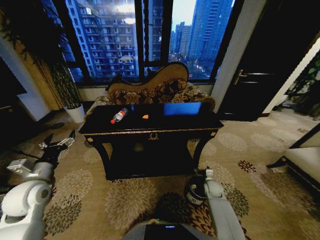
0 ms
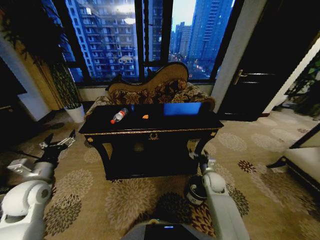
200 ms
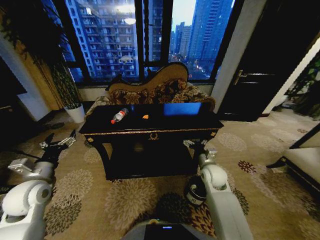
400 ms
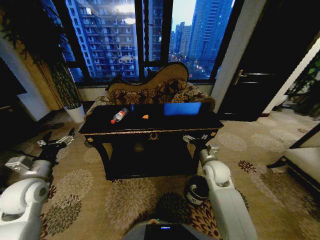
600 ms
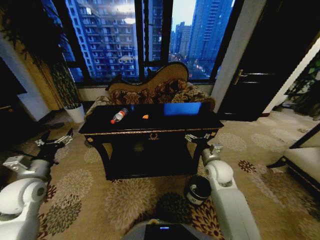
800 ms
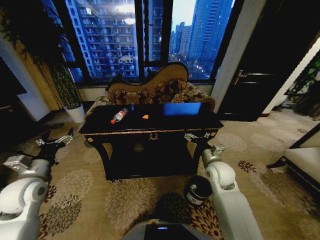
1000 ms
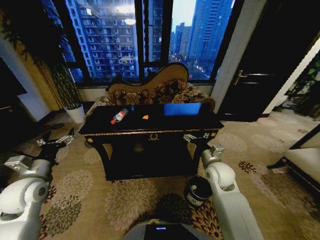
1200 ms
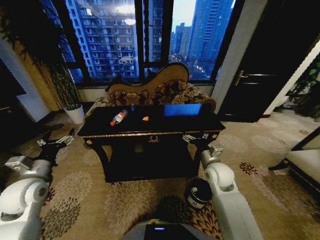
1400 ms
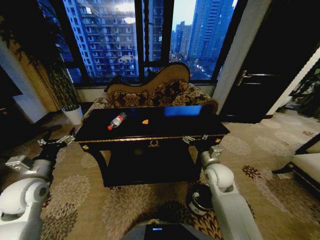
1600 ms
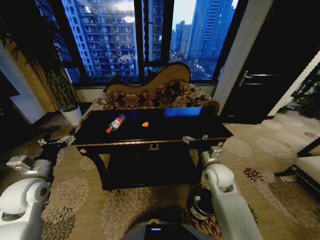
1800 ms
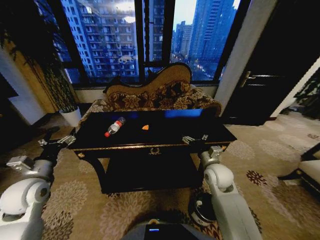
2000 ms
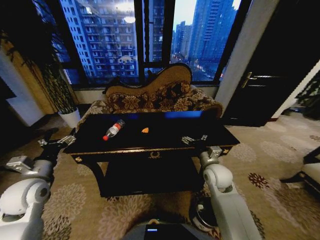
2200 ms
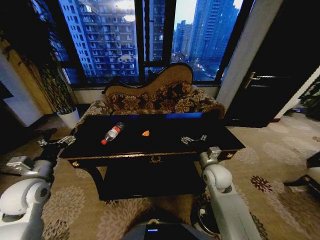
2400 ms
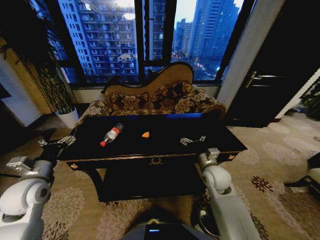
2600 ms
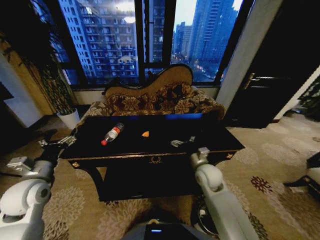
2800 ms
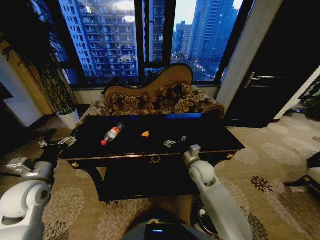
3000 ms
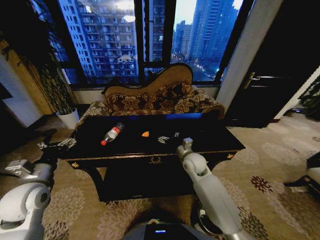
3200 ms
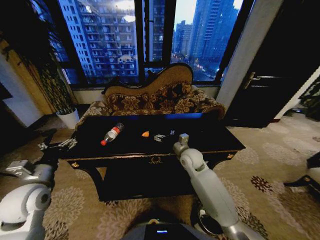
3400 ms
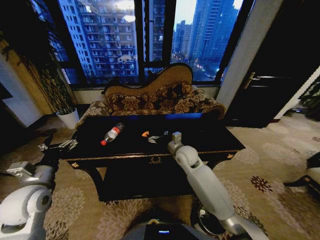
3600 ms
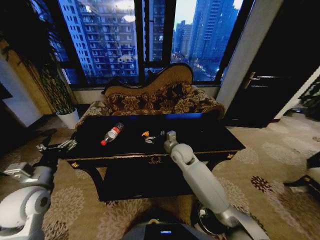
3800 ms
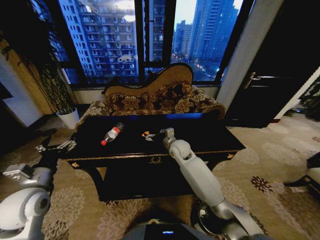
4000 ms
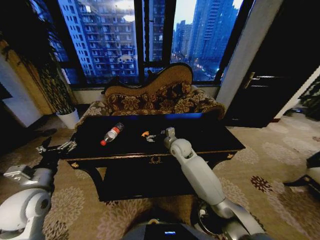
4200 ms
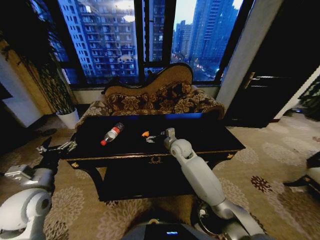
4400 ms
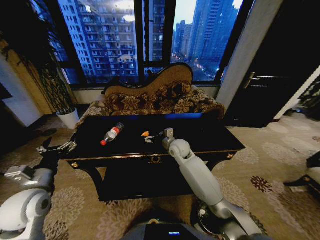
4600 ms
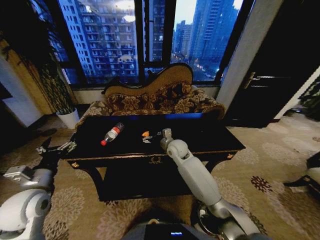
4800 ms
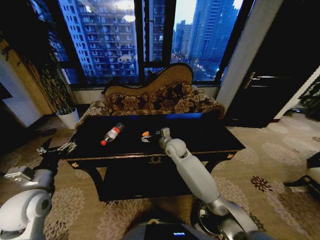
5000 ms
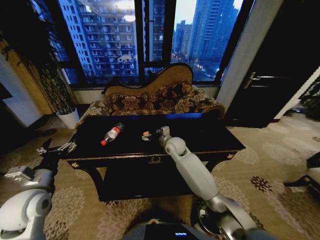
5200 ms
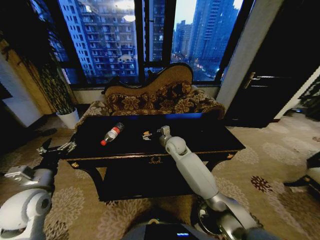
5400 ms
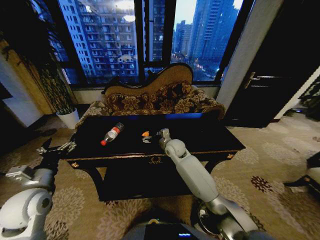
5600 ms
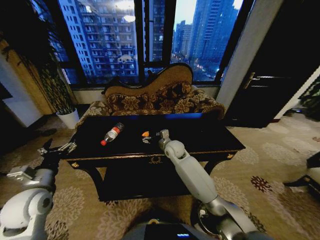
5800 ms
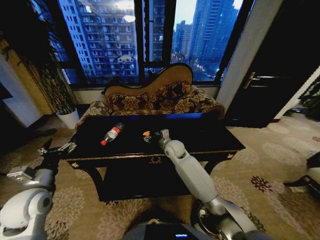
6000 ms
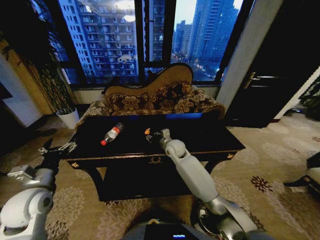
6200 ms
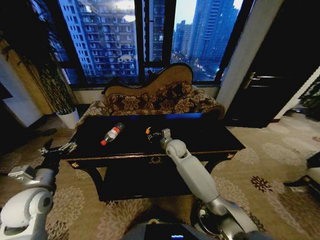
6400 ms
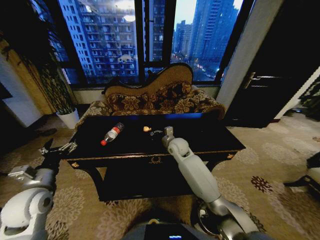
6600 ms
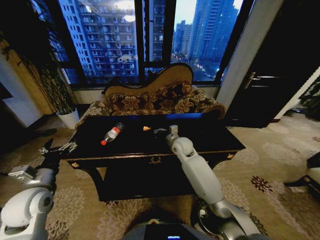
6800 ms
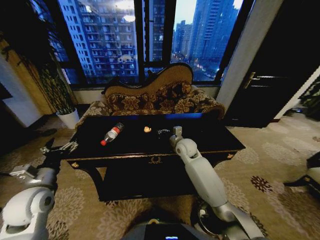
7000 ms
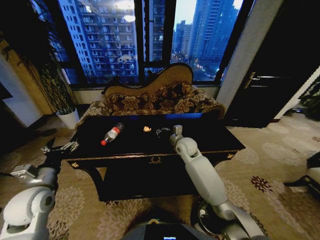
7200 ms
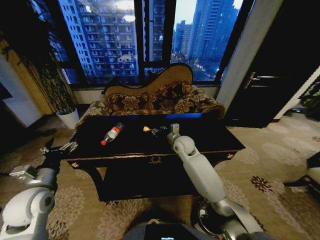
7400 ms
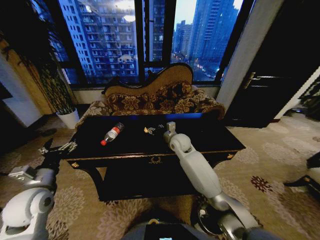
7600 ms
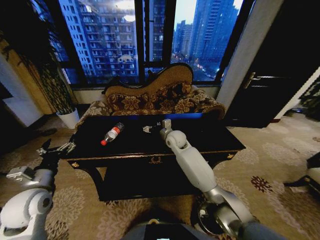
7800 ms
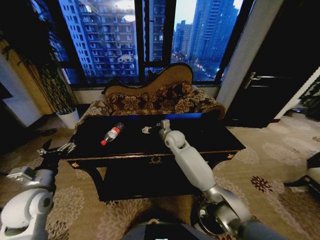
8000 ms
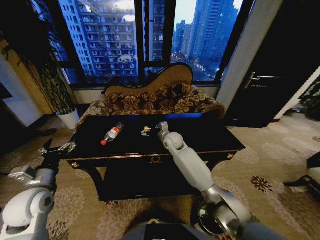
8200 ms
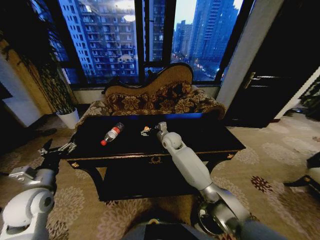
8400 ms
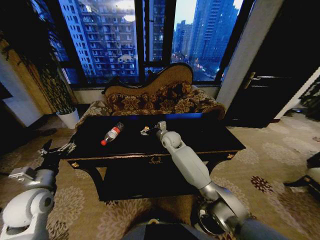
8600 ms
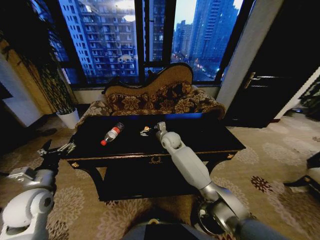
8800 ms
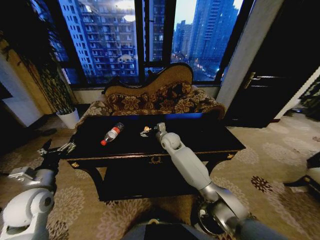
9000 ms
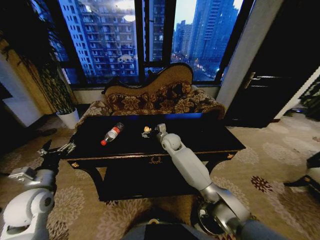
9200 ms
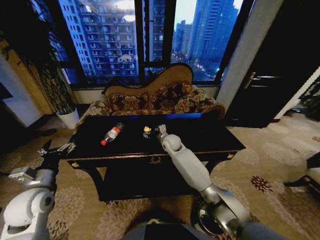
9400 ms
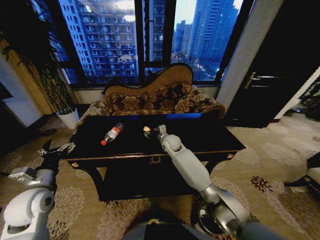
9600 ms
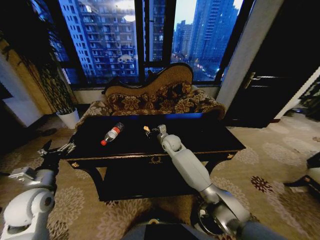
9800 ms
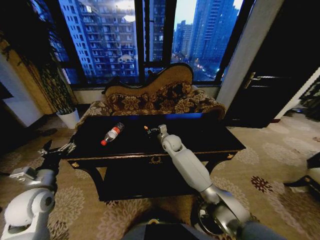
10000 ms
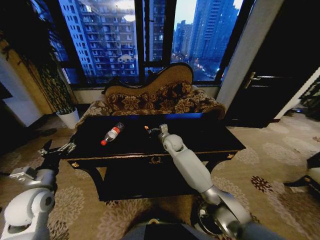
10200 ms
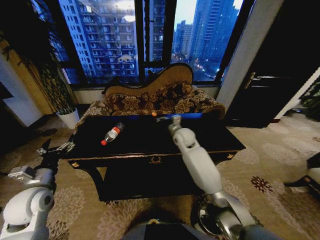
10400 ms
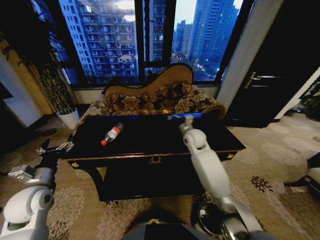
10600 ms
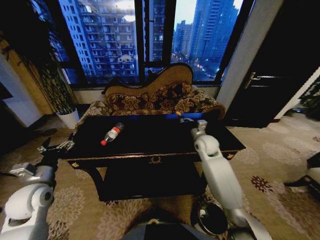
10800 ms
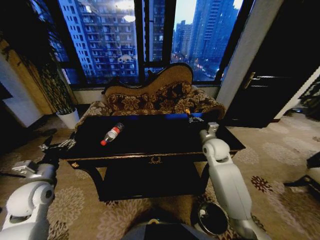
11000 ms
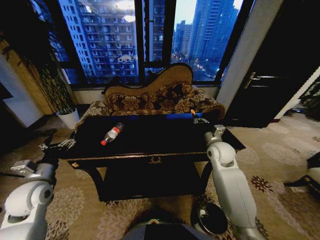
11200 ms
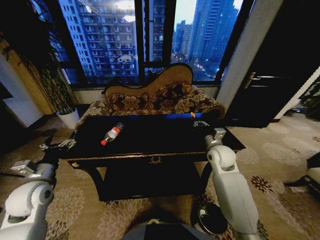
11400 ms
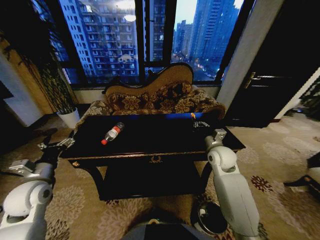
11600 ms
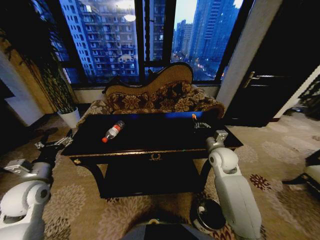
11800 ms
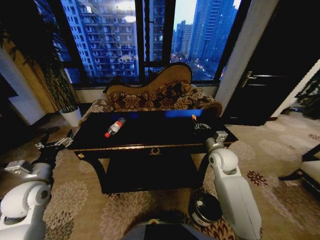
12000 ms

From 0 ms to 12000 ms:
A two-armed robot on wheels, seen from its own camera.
Task of the whole recording: Move to the front of the table and place the trash on the table into the trash bin.
From 0 ms to 1600 ms: The right gripper is displaced upward by roughly 25 cm.
From 1600 ms to 3000 ms: The right gripper is displaced to the left by about 5 cm.
From 3000 ms to 4400 ms: The right gripper is displaced forward and to the left by roughly 10 cm.
From 4400 ms to 6000 ms: The grippers stay close to where they were, moving slightly.
From 6000 ms to 7600 ms: The right gripper closes, then opens again.
From 7600 ms to 9000 ms: The right gripper moves approximately 5 cm, and opens its fingers.
From 9000 ms to 10400 ms: The right gripper moves about 5 cm, and closes up.
From 10400 ms to 12000 ms: The right gripper moves to the right and backward, some 20 cm.

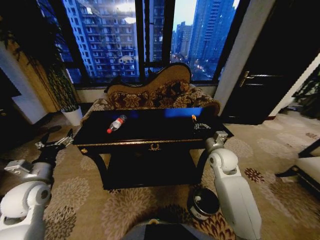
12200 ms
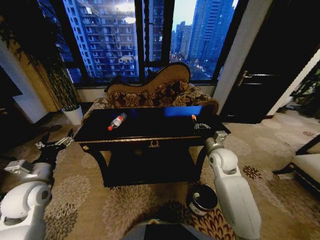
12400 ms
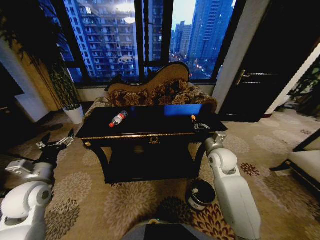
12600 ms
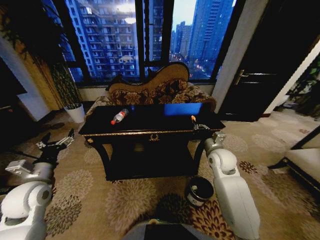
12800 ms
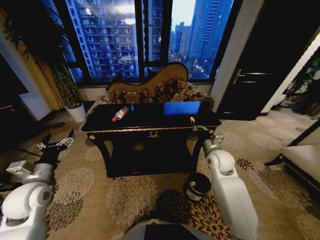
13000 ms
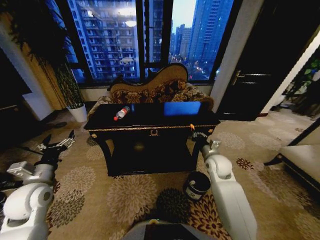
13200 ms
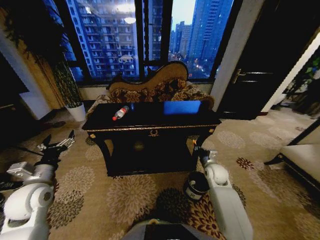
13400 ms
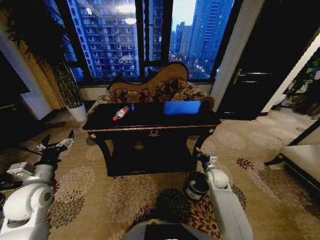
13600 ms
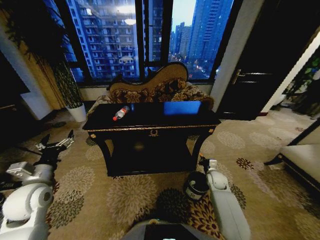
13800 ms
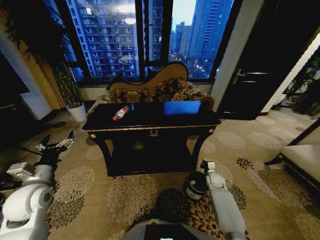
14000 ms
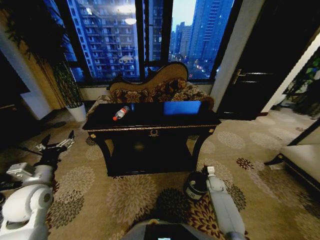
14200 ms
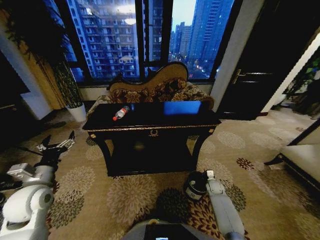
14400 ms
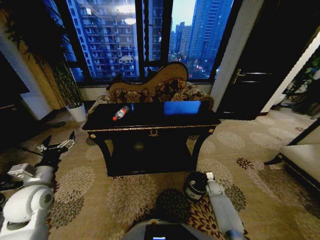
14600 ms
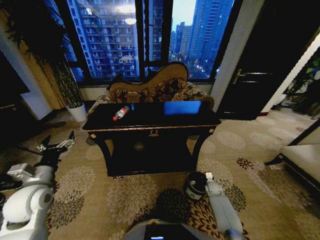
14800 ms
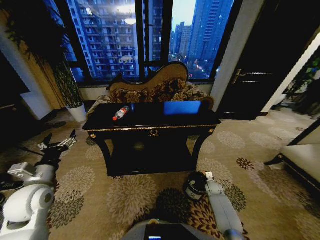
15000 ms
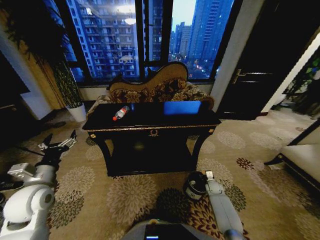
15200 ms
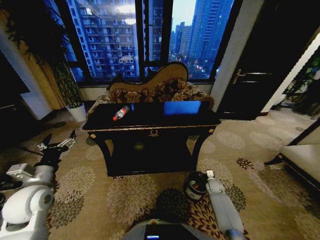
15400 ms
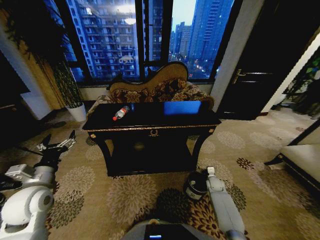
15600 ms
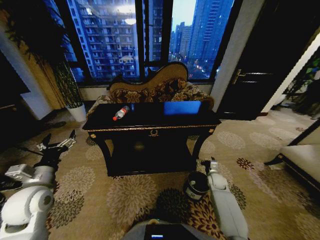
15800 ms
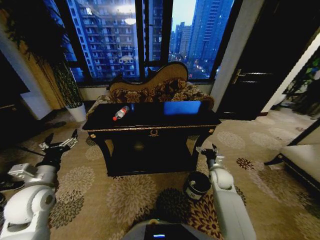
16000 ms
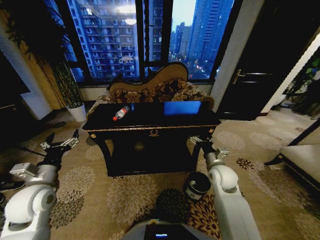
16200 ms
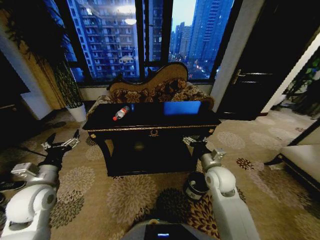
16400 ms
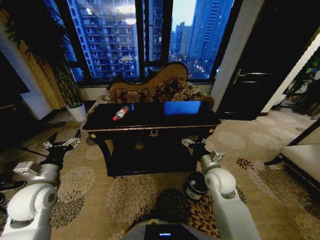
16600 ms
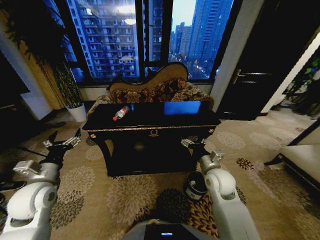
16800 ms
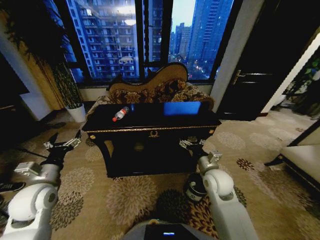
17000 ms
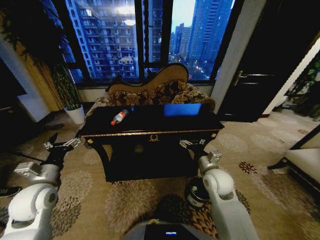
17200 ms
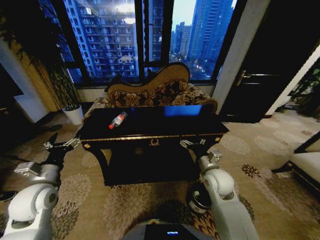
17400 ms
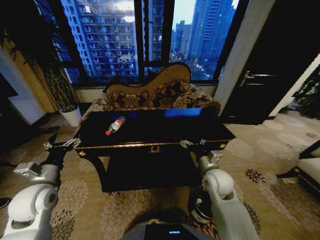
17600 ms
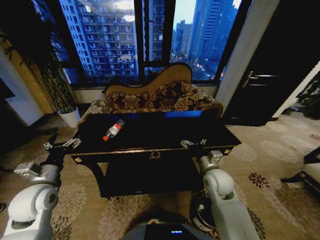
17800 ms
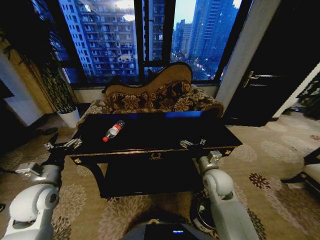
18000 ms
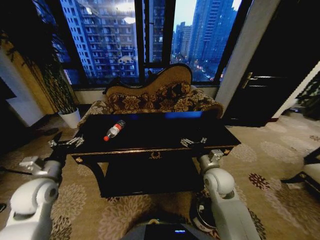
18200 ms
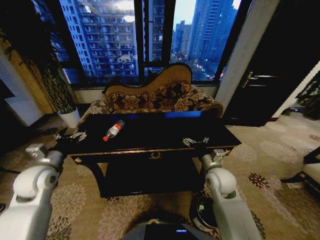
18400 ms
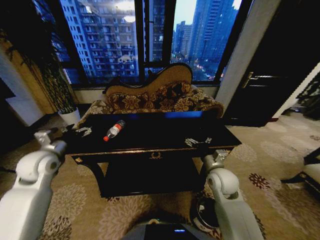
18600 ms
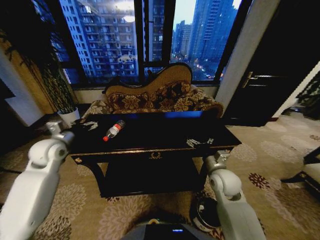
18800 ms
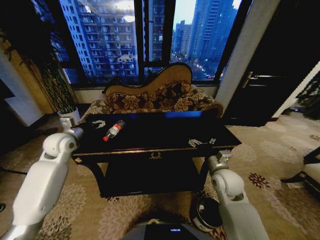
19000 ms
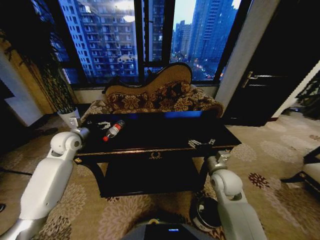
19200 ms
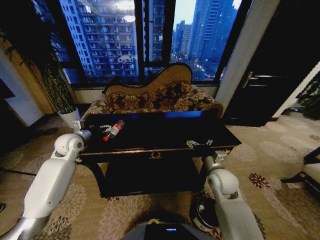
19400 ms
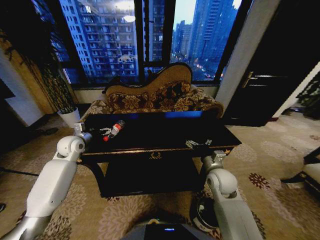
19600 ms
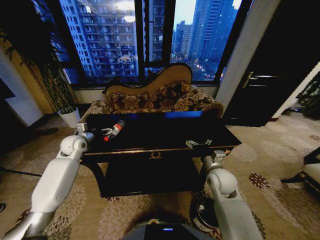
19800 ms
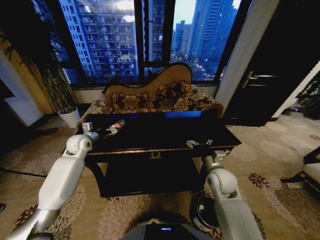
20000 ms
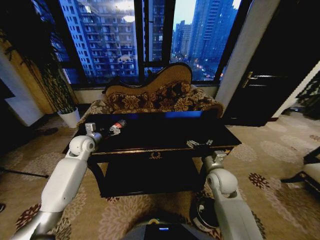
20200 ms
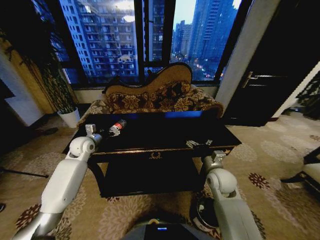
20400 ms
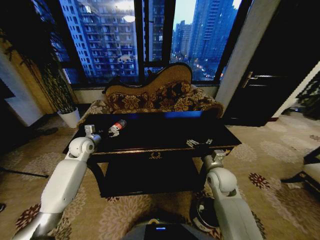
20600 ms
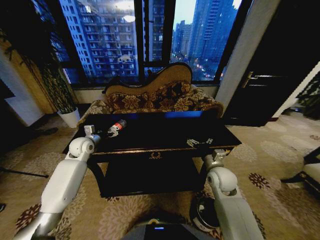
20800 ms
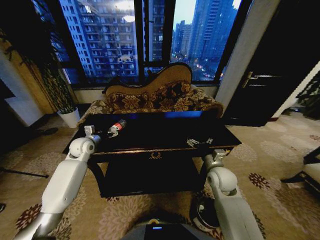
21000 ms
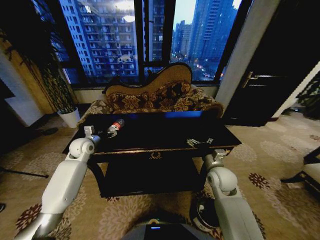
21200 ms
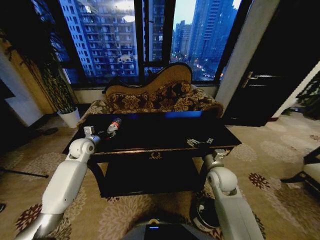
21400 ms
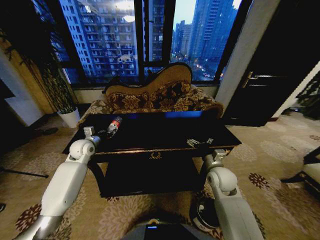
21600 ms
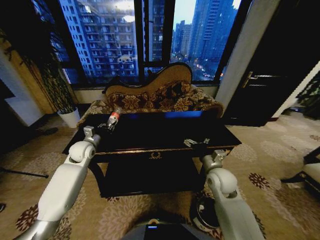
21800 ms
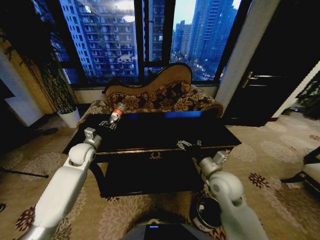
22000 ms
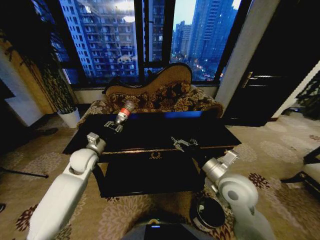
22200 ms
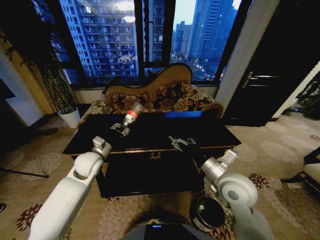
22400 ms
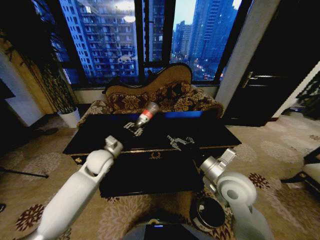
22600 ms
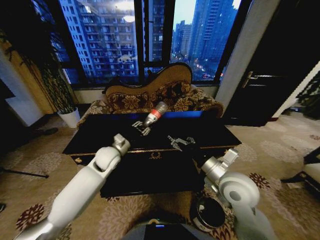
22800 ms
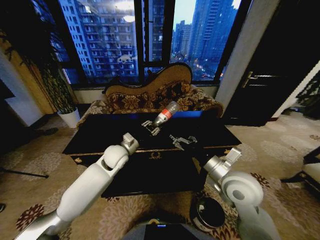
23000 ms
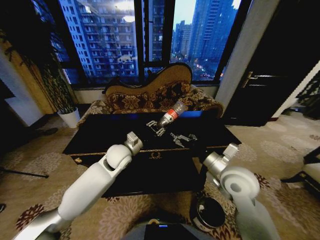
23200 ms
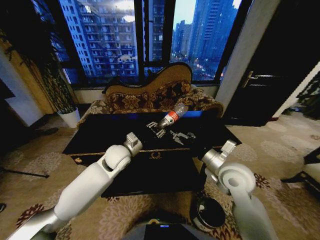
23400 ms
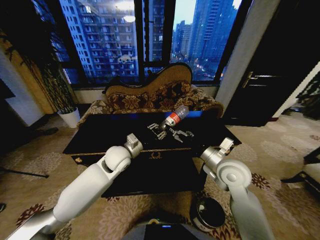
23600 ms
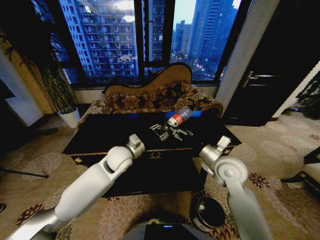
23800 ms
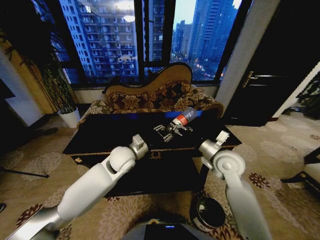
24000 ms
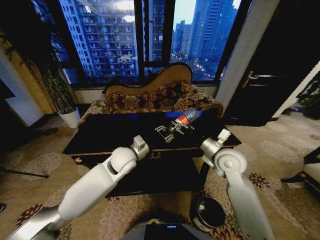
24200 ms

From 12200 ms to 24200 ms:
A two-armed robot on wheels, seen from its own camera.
Task of the whole recording: Move to the front of the table and place the trash on the table into the trash bin.
From 12200 ms to 13800 ms: The right gripper moves downward, approximately 20 cm.
From 13800 ms to 15200 ms: The right gripper heads downward, covering some 10 cm, and opens up.
From 15200 ms to 16600 ms: The right gripper goes roughly 30 cm upward and to the left, and opens.
From 18200 ms to 19800 ms: The left gripper goes about 20 cm forward.
From 19800 ms to 21200 ms: There are only small adjustments of the grippers.
From 21200 ms to 22600 ms: The left gripper travels to the right and backward by about 15 cm, and closes. The right gripper moves upward and backward, about 10 cm.
From 22600 ms to 24200 ms: The right gripper shifts some 10 cm forward, while the left gripper travels to the right by approximately 10 cm.
